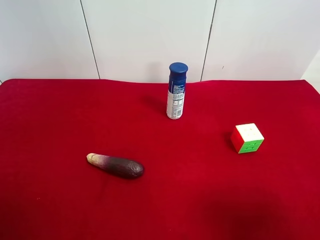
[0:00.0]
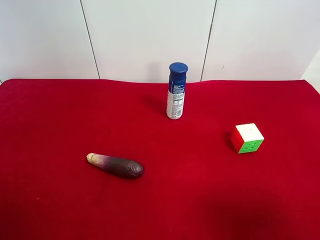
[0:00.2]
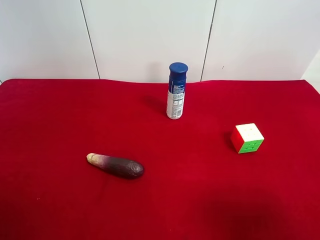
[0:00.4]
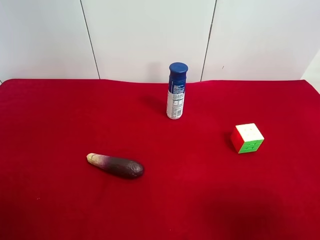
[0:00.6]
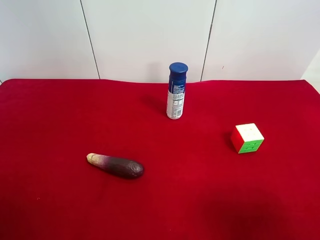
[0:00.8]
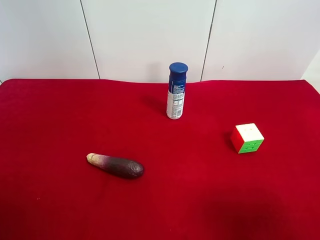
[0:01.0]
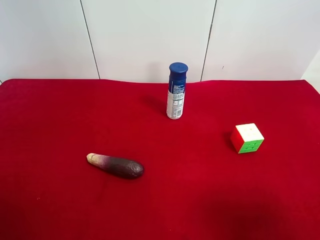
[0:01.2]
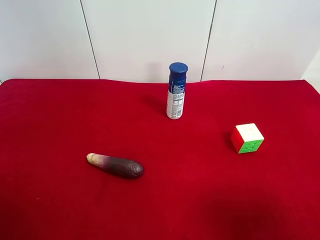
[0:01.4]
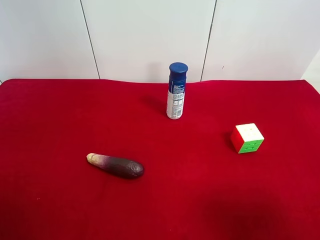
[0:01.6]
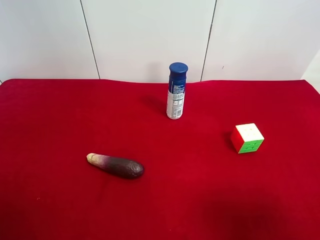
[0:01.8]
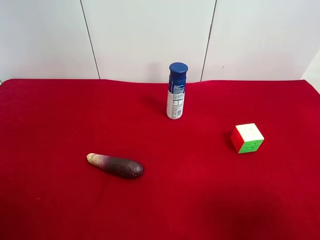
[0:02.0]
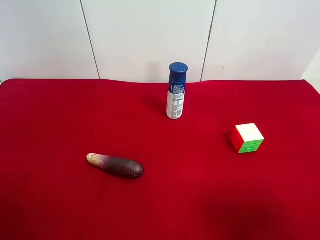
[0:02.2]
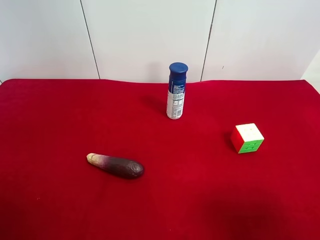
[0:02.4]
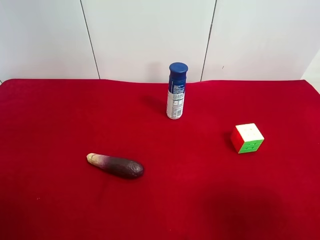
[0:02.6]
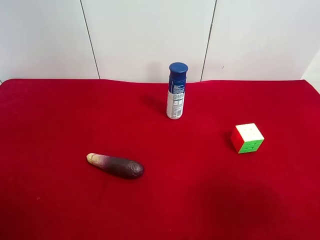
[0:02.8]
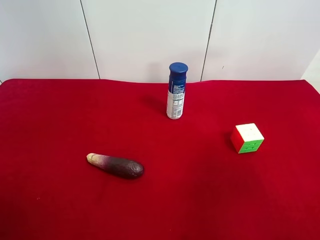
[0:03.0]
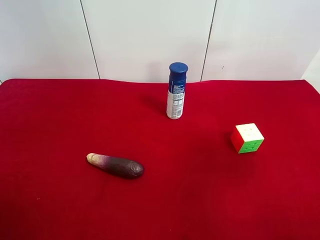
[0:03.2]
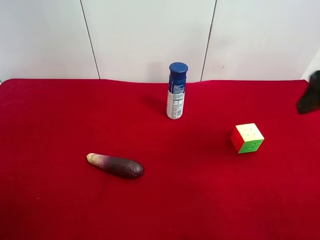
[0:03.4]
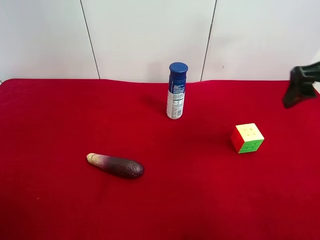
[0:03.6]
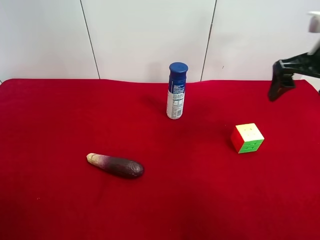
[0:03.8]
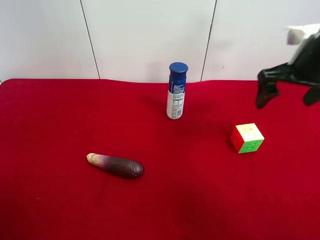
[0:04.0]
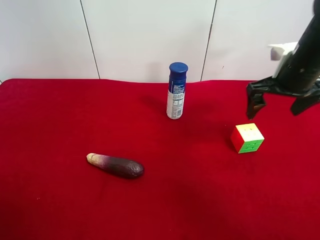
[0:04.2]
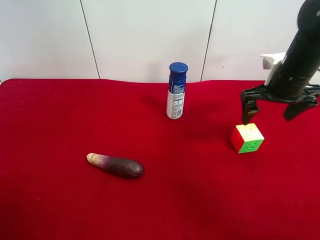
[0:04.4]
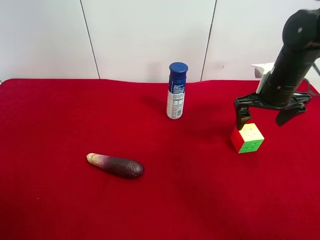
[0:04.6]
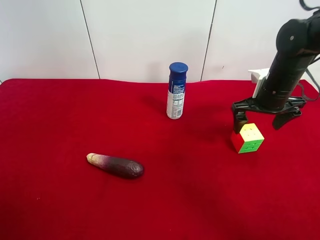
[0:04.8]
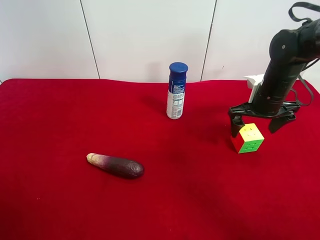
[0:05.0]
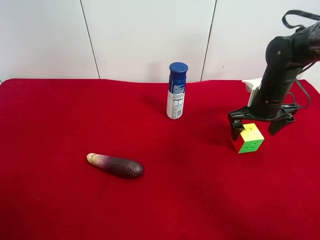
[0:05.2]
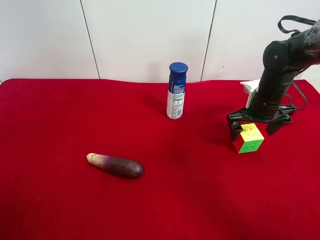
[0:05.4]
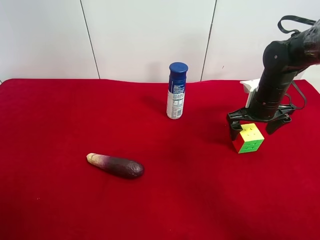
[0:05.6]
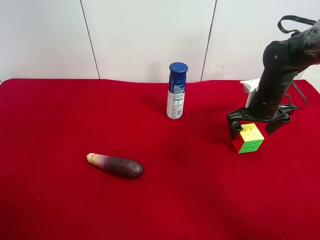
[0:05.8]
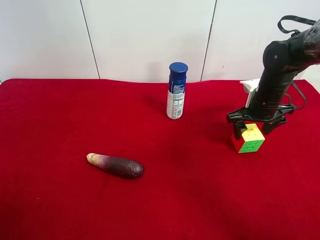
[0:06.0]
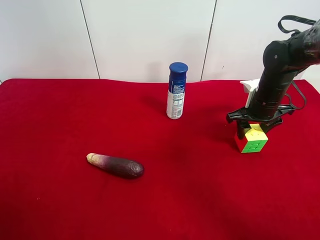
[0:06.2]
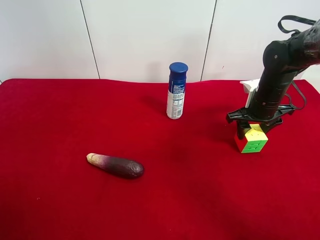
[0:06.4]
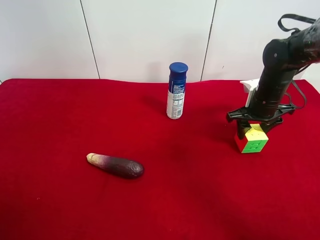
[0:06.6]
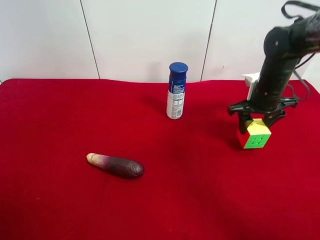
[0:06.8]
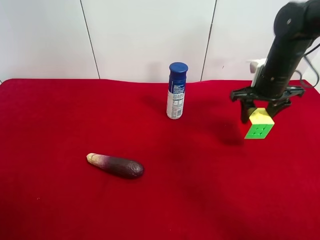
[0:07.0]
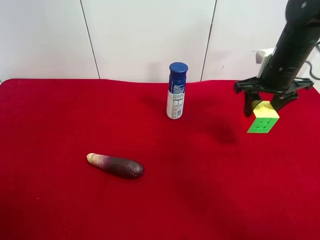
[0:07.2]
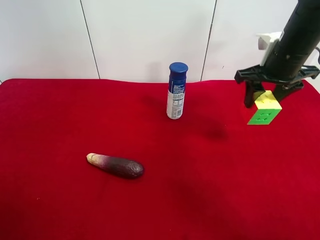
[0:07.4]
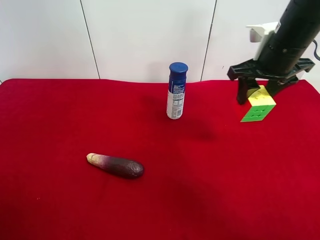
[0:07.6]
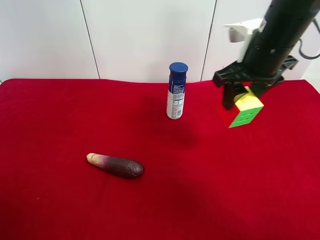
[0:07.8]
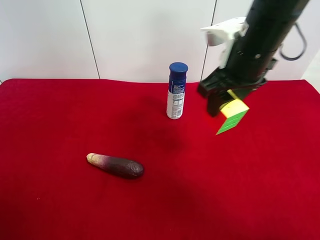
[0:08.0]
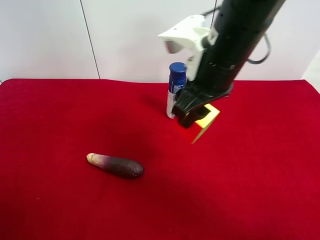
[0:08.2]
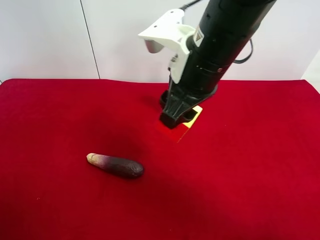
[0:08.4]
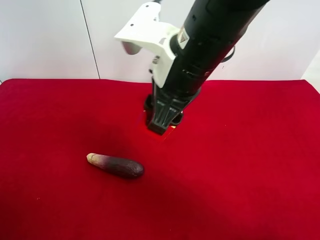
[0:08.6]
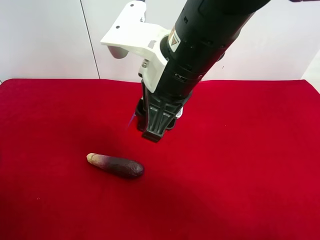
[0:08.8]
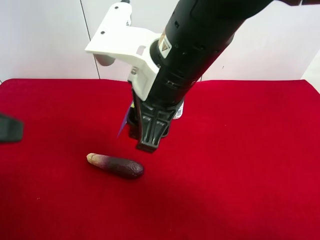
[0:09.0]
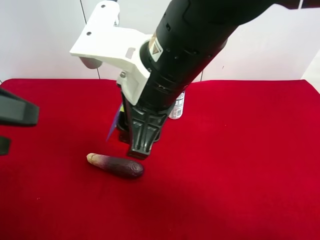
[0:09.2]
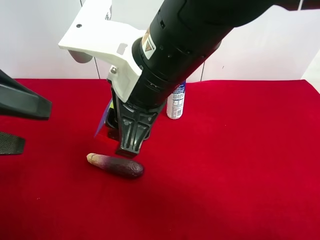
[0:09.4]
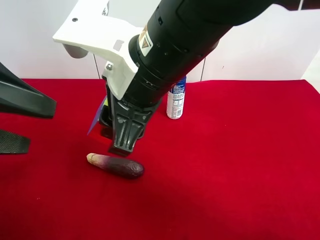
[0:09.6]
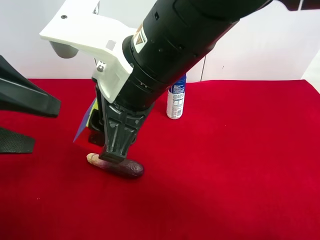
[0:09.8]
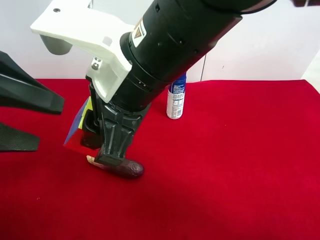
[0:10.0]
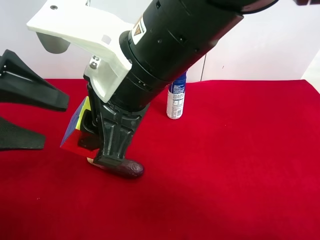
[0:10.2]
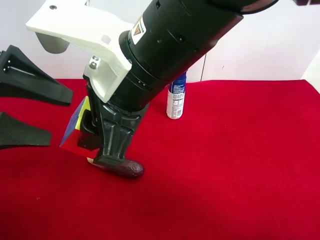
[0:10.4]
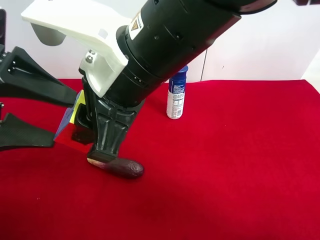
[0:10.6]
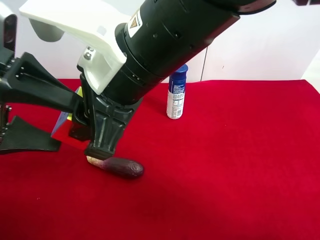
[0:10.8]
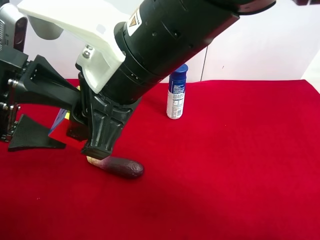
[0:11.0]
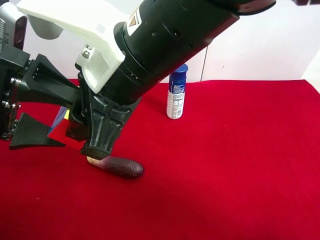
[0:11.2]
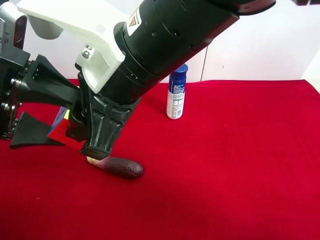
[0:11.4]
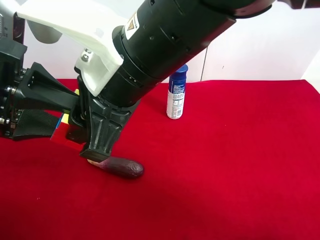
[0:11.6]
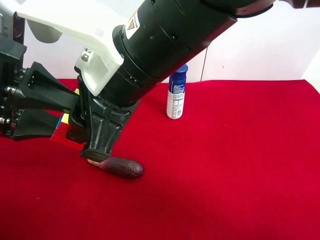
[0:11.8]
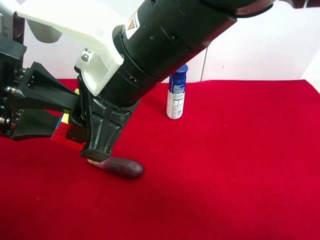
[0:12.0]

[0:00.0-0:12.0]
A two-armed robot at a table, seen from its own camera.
Task of the whole recording: use the right gripper to pick up the item and transfer it from the right gripper to the left gripper.
Step, 0:00.0 to 0:06.0: Use the right gripper to grab the Rubik's Cube on the right side of the table.
0:00.0 to 0:01.6: Neither gripper changes place.
0:03.0 to 0:04.4: The right gripper heads forward and downward, covering about 25 cm.
0:04.4 to 0:06.0: The right gripper heads downward, covering roughly 10 cm, and closes.
0:06.0 to 0:07.6: The right gripper is displaced upward by roughly 15 cm.
0:07.6 to 0:09.0: The left gripper heads forward, covering about 10 cm. Meanwhile the right gripper is displaced to the left and backward by approximately 20 cm.
0:09.0 to 0:10.4: The left gripper moves forward, some 5 cm.
0:10.4 to 0:12.0: The left gripper closes.

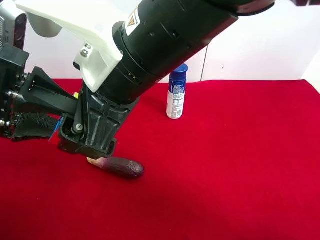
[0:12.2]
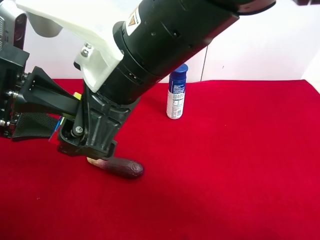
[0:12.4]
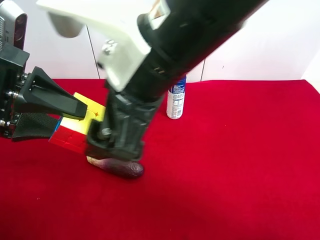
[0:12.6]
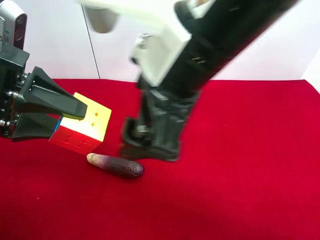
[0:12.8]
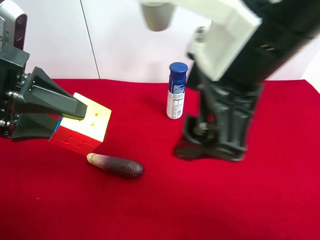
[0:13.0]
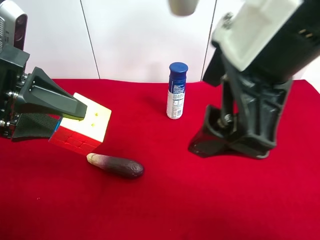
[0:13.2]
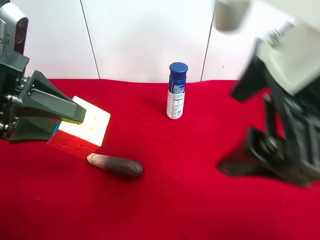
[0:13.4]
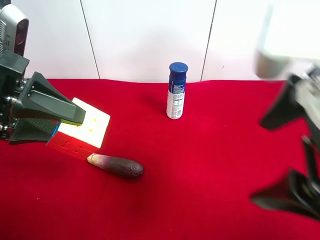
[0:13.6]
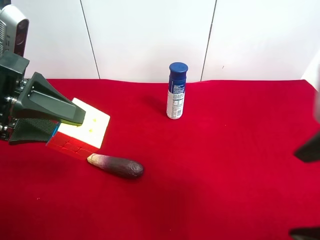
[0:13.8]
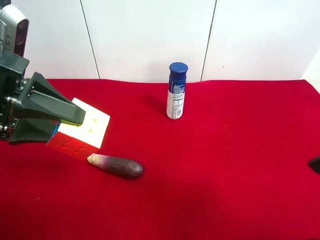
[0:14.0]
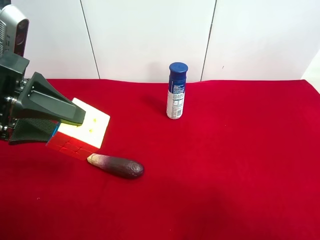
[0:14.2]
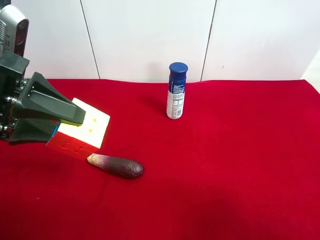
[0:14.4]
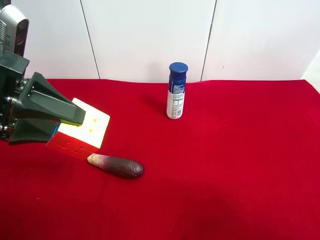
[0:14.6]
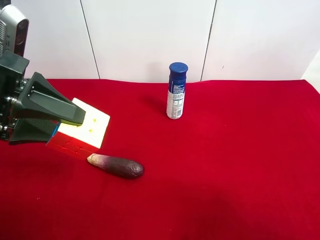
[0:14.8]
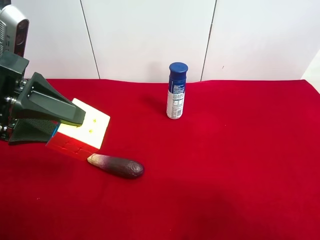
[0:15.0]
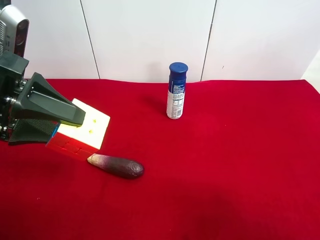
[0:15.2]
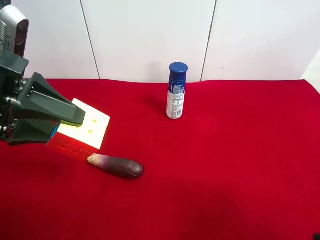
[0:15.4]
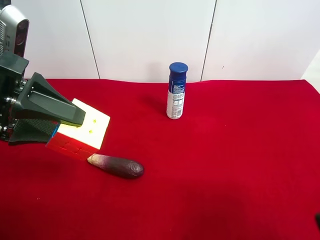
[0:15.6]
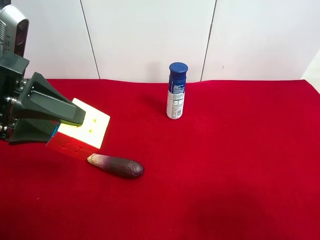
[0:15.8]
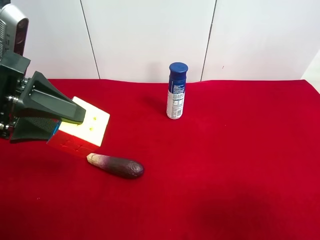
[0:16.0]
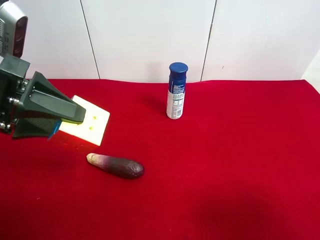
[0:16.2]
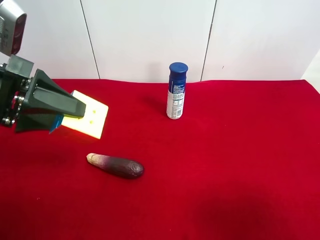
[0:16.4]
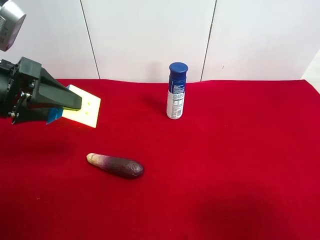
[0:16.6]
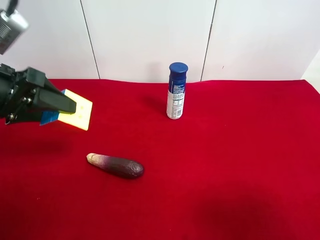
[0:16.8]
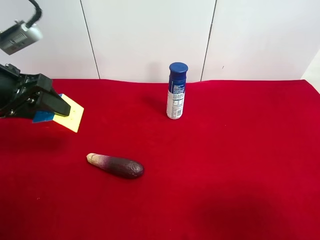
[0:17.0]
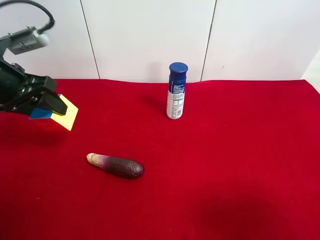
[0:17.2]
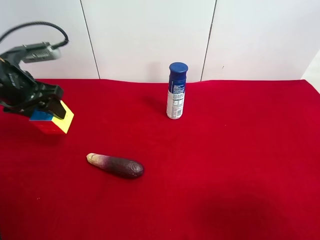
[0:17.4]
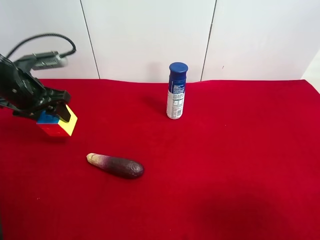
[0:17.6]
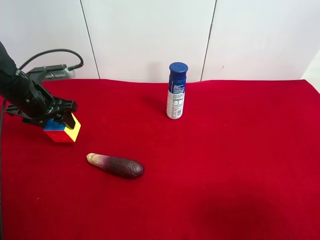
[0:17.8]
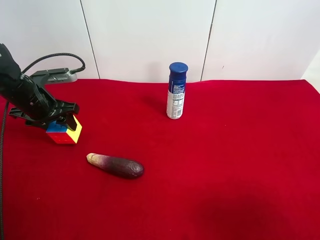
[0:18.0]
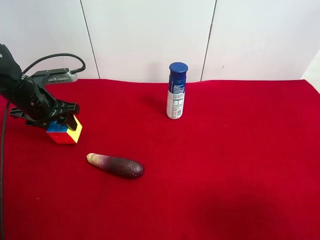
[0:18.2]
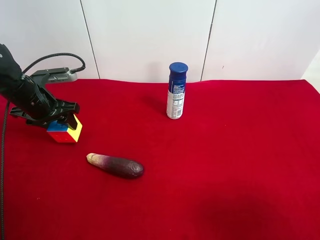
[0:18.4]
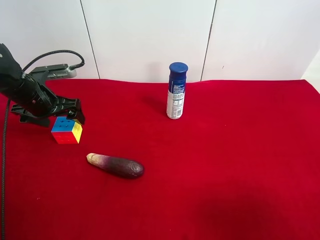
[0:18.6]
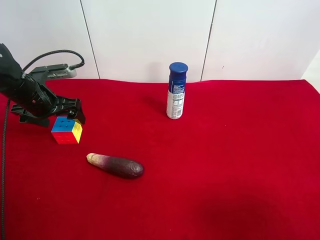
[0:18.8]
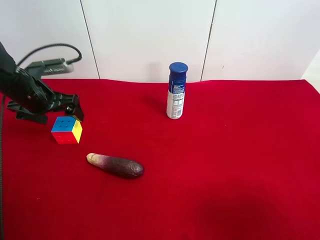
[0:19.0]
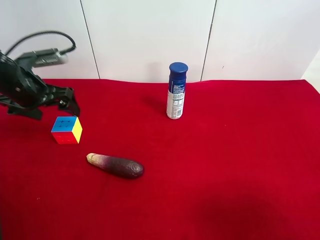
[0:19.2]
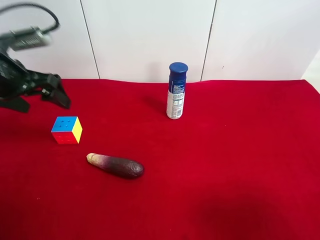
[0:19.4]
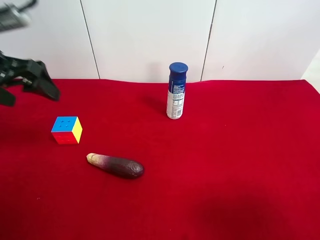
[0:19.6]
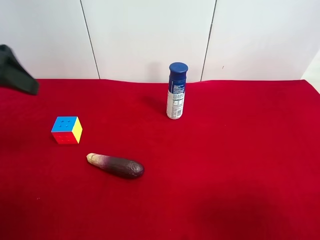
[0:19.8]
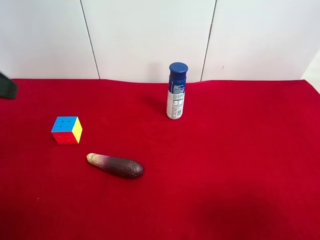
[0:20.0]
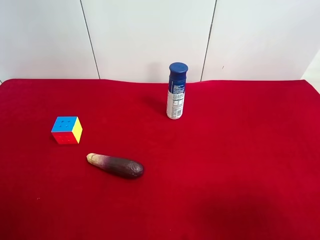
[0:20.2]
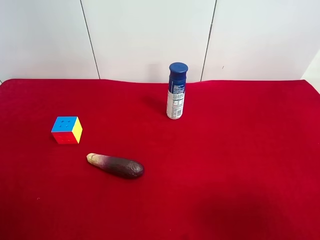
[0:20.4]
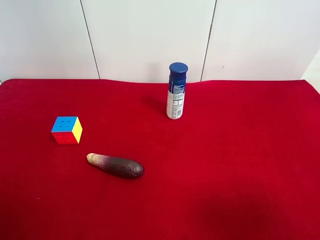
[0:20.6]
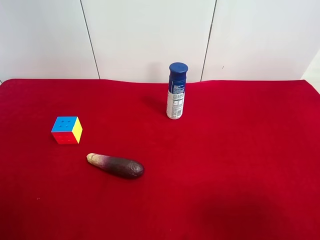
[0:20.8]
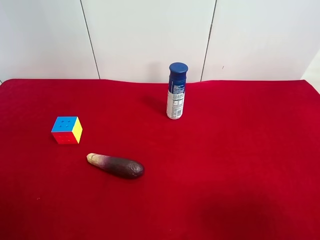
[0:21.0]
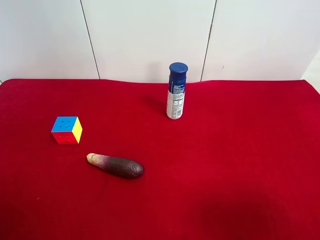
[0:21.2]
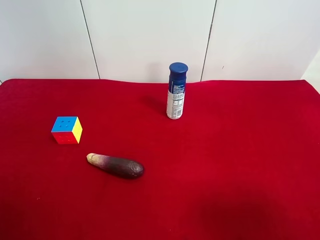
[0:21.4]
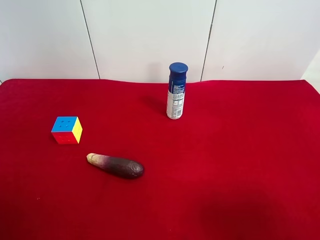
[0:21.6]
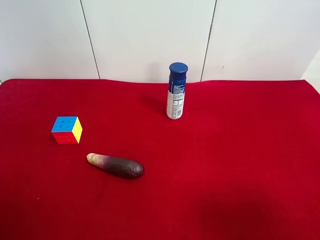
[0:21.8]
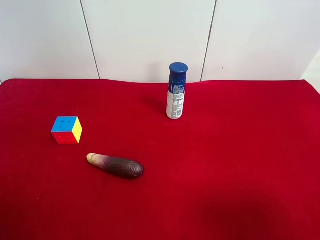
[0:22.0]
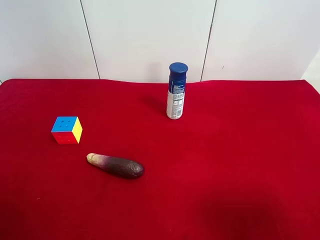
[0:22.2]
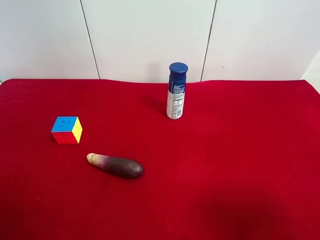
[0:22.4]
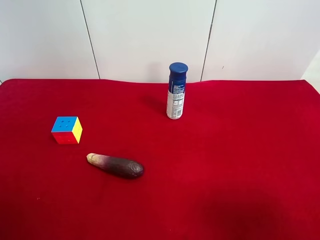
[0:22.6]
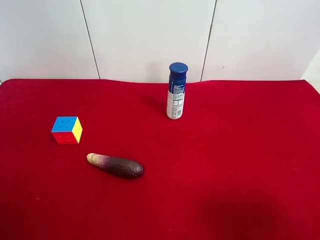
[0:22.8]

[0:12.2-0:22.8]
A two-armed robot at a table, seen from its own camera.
Task of the whole recording: use the right gripper to pick up the item and transfer it from the right gripper to the left gripper.
Step, 0:12.2 to 0:18.6: The left gripper places Rubik's Cube on the left side of the table.
0:12.2 to 0:13.8: The right gripper is displaced to the right and backward by some 25 cm.
0:13.8 to 0:15.2: The right gripper moves to the right, approximately 5 cm.
0:16.8 to 0:18.2: The left gripper is displaced forward and downward by roughly 15 cm.
0:18.2 to 0:19.8: The left gripper travels upward and backward by approximately 25 cm, and opens up.
0:19.8 to 0:21.2: The left gripper travels backward by about 20 cm.
